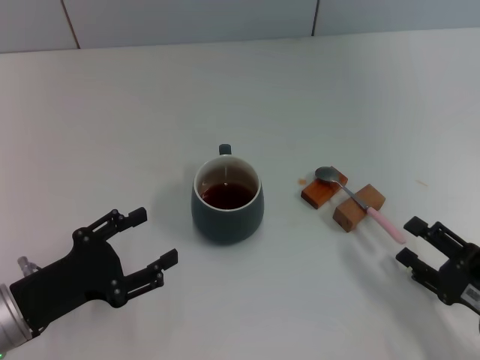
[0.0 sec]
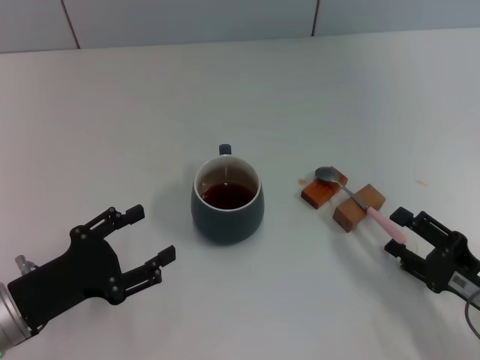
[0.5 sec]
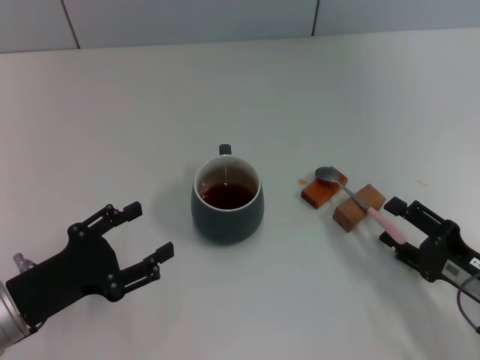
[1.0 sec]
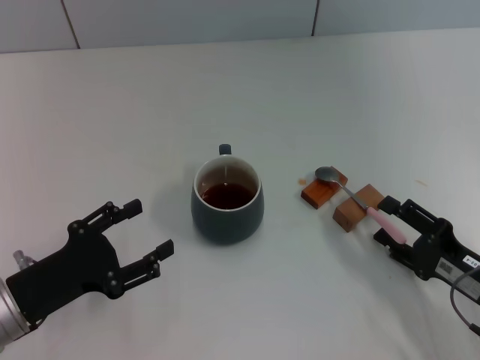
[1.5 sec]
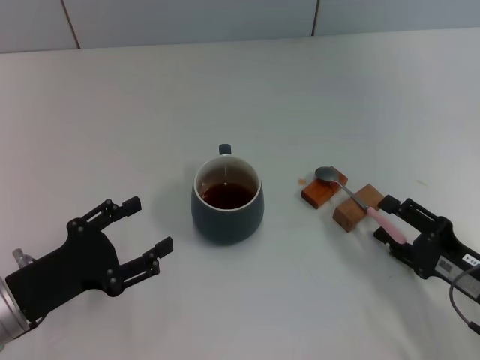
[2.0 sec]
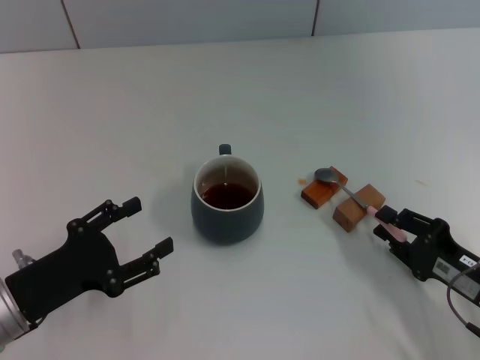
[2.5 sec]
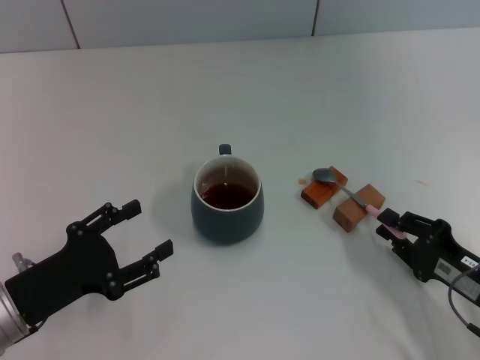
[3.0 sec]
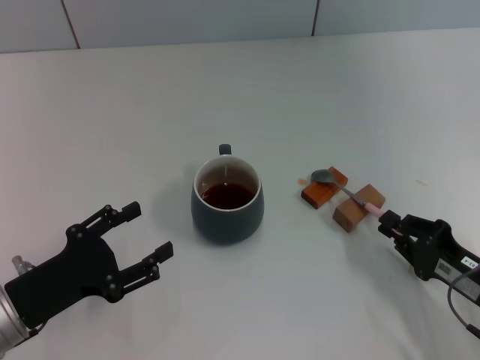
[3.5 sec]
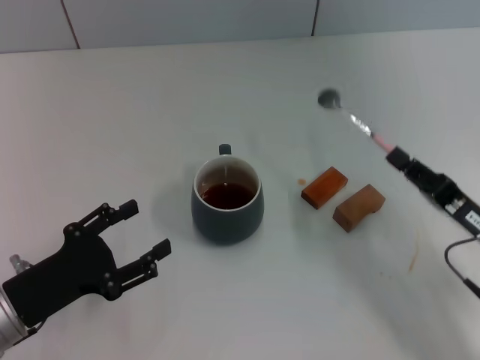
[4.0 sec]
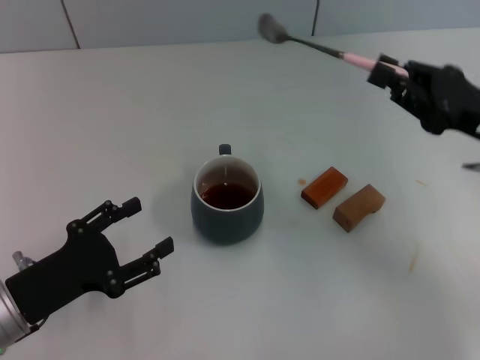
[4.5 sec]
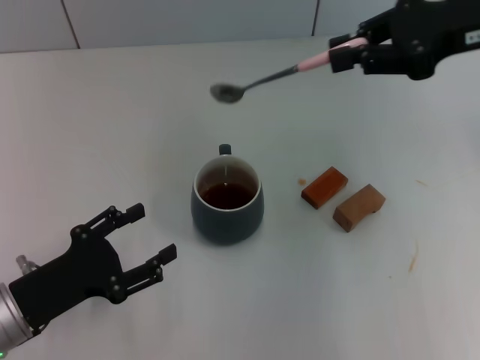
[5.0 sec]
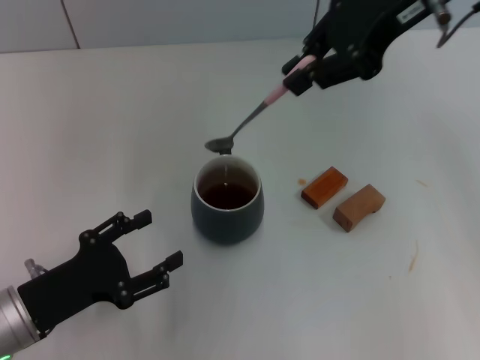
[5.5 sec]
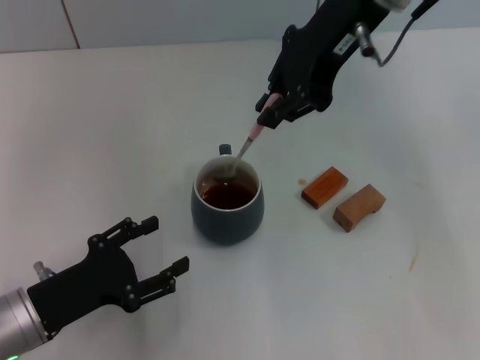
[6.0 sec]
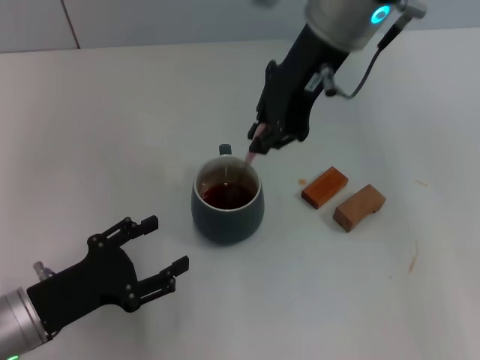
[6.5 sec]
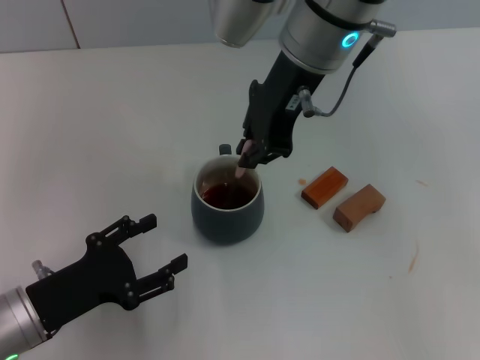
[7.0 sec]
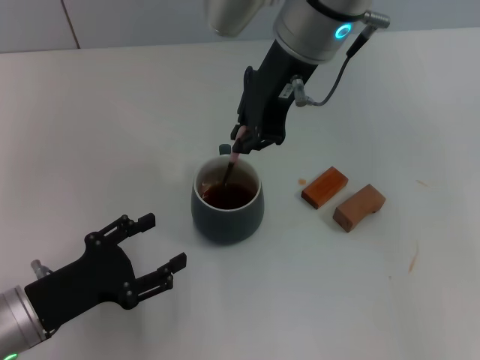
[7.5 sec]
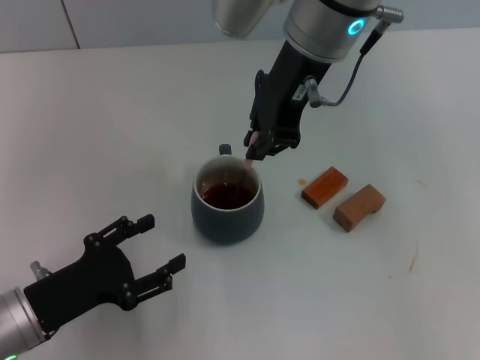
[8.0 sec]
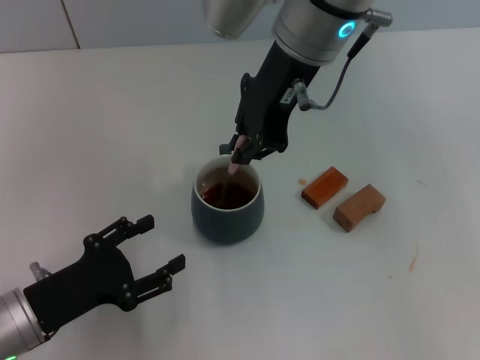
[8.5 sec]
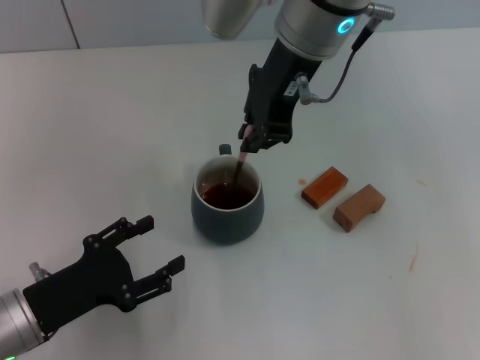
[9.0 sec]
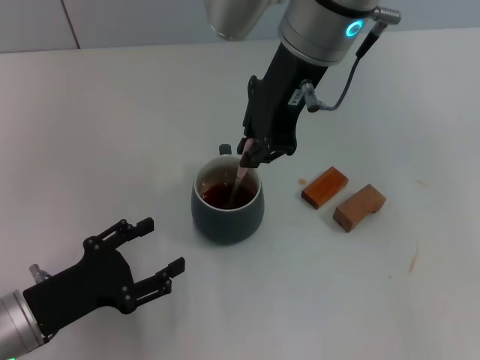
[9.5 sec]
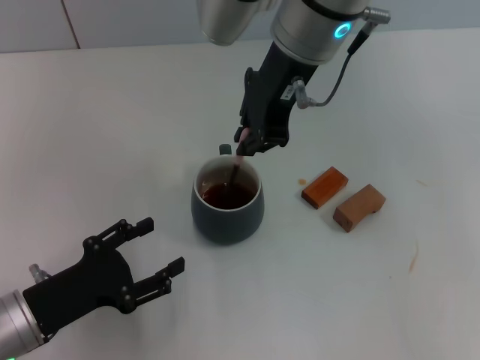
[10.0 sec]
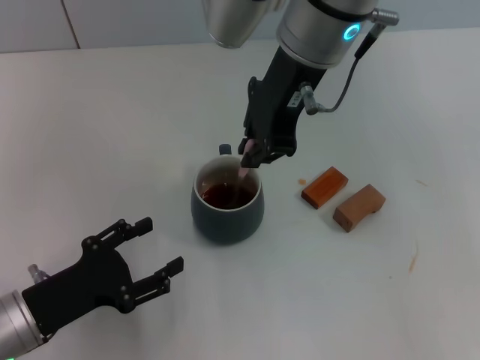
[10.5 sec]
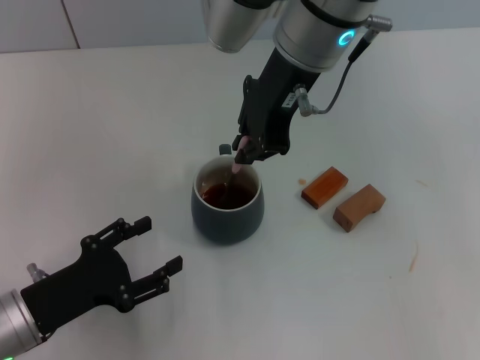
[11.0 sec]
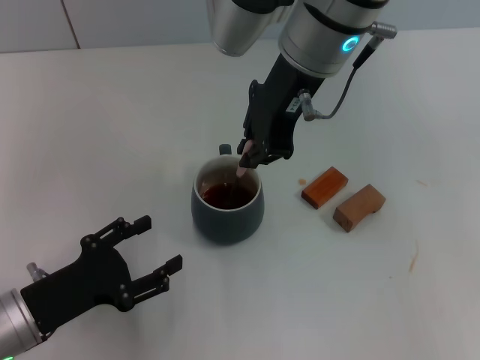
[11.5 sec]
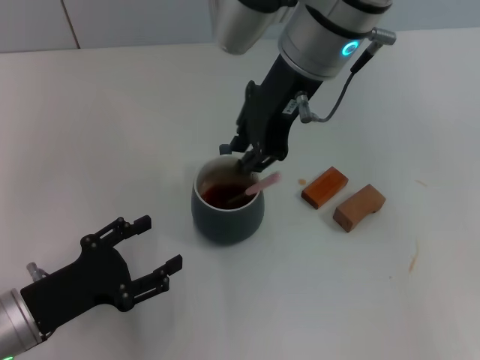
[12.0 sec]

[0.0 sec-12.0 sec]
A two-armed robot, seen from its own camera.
Task of the whole recording: Move the grey cup to the center, lift the pink spoon, stir it three times in the cup, and put the spoon into the cup.
Step, 0.0 sec to 4.0 sec: Pick up the spoon with the right gripper.
Step, 4.5 sec to 8.0 sec: Stir the coffee in the cup with the right gripper.
0.0 sec to 2.0 sec: There are only small adjustments of the grippers.
2.0 sec to 4.0 sec: The right gripper closes.
4.0 sec to 6.0 sec: The right gripper travels upward, forward and to the left by roughly 35 cm.
6.0 sec to 8.0 sec: The right gripper moves approximately 5 cm.
8.0 sec to 10.0 sec: Both grippers stay put.
10.0 sec to 12.0 sec: The grippers move only a little.

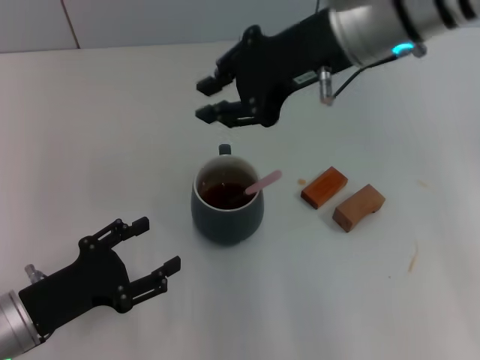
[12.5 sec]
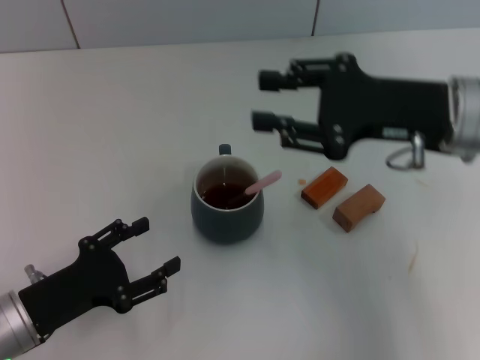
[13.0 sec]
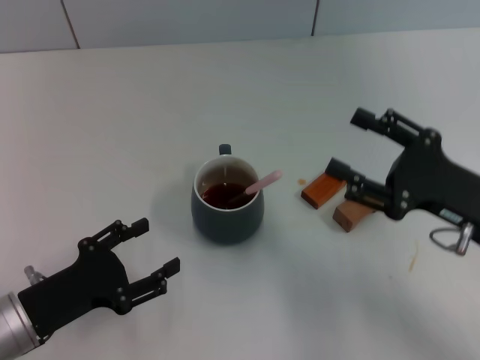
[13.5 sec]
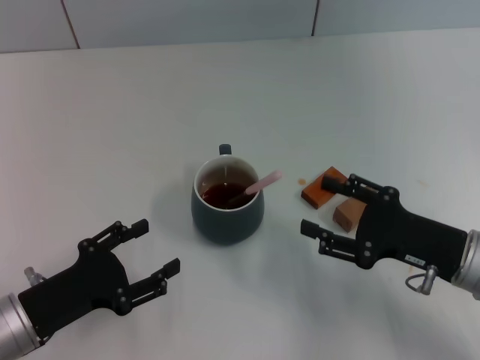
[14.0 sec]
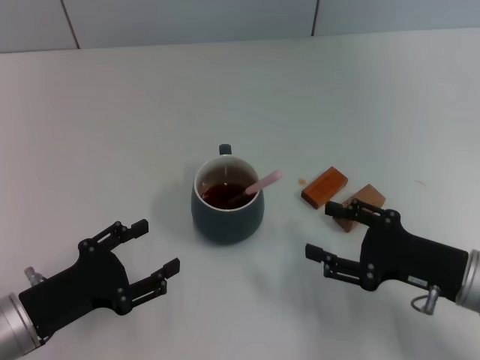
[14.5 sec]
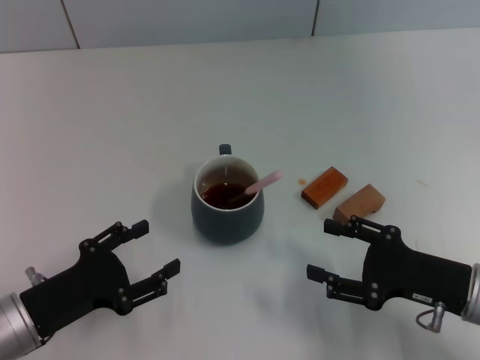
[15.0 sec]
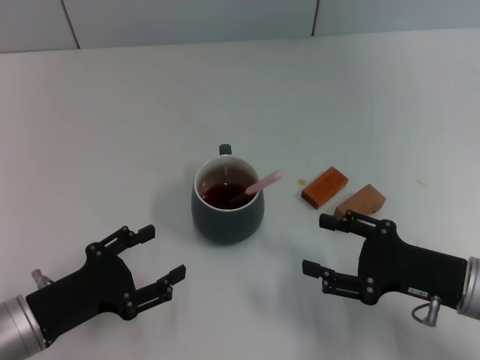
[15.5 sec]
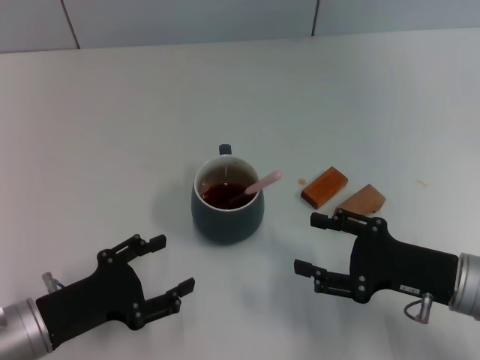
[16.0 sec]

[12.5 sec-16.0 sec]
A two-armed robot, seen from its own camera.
Task of the whole recording: Move the grey cup to the center, lift the pink spoon, stir it three times in the cup, and put the spoon into the cup.
12.5 sec to 14.5 sec: The right gripper shifts roughly 30 cm downward, backward and to the right, and opens its fingers.
14.5 sec to 16.0 sec: The grippers stay close to where they were, moving slightly.
